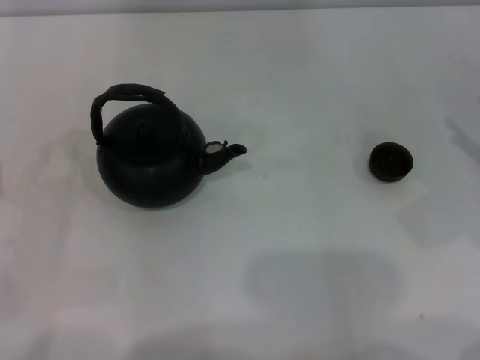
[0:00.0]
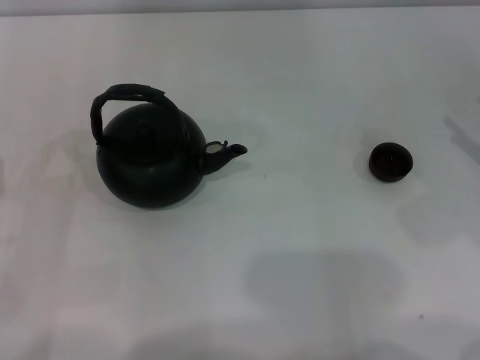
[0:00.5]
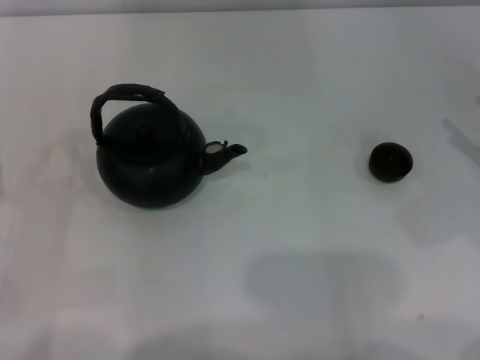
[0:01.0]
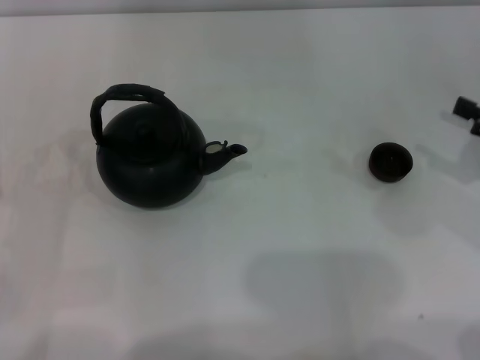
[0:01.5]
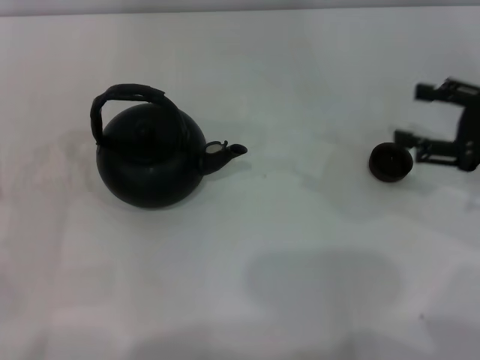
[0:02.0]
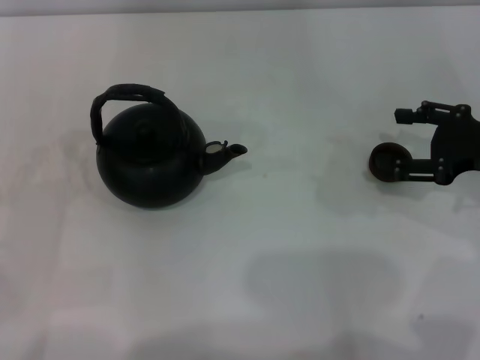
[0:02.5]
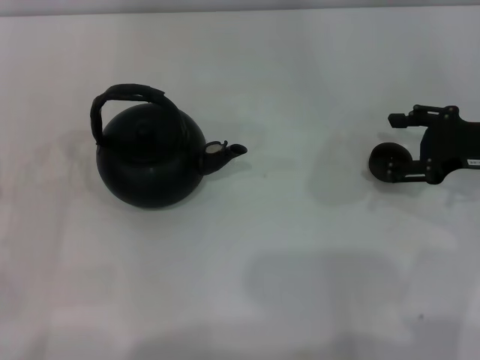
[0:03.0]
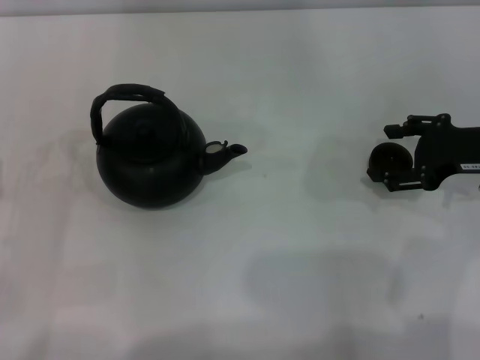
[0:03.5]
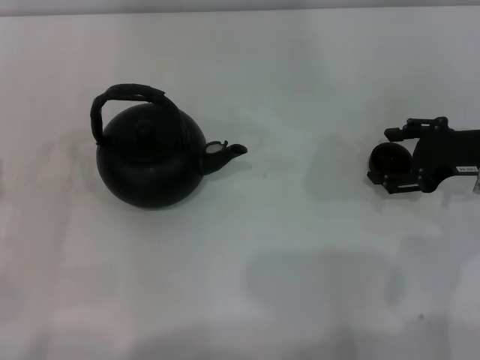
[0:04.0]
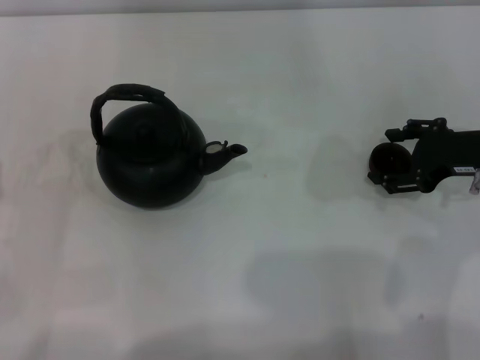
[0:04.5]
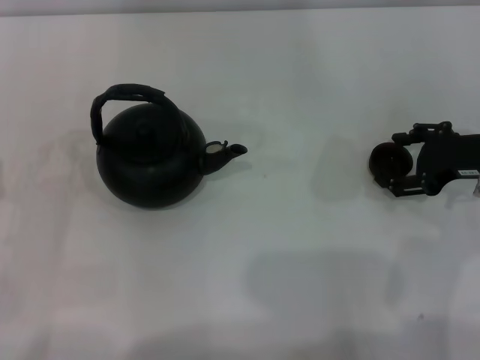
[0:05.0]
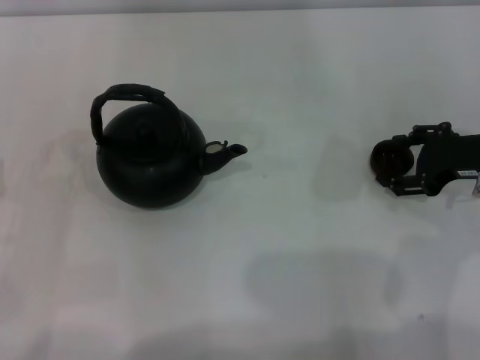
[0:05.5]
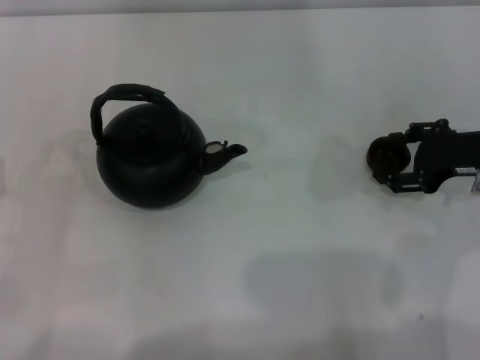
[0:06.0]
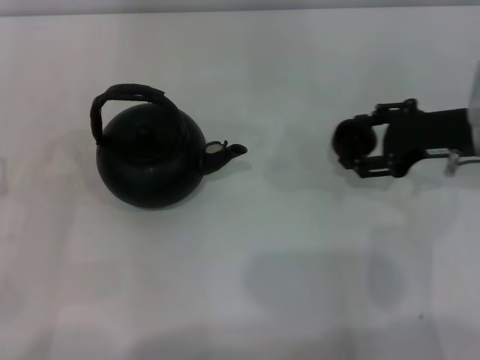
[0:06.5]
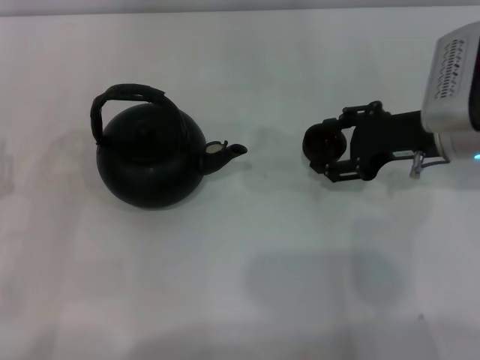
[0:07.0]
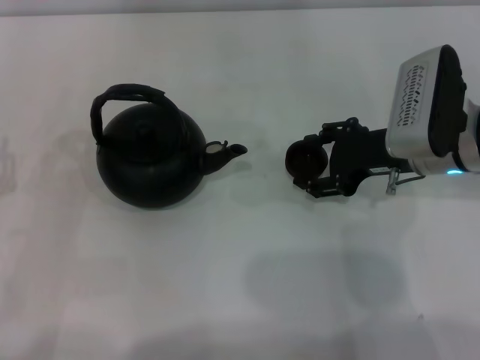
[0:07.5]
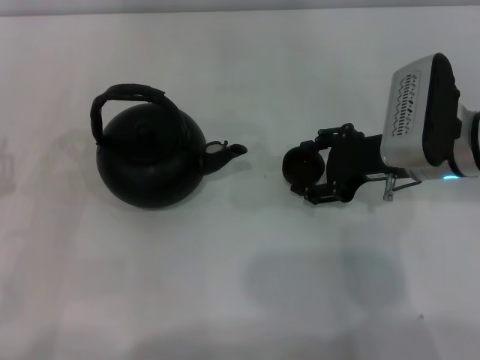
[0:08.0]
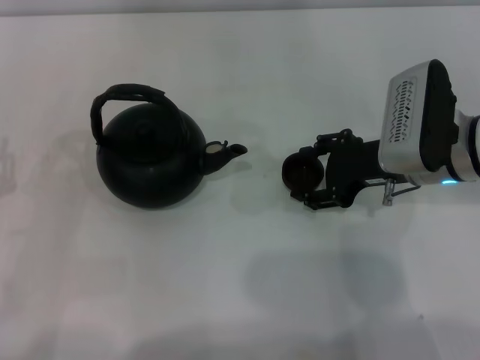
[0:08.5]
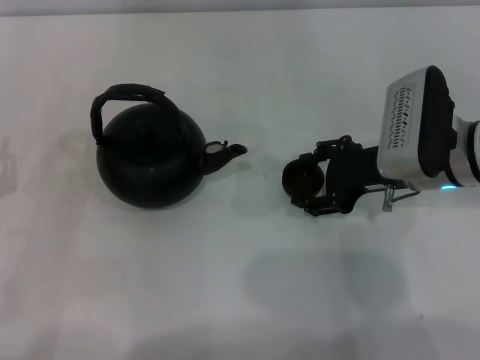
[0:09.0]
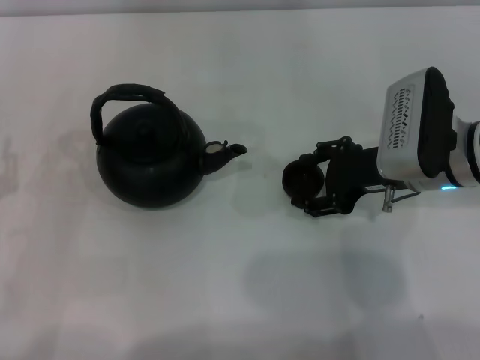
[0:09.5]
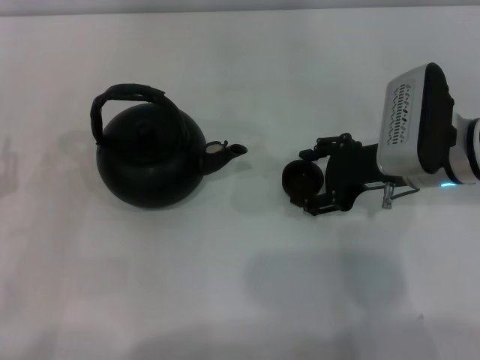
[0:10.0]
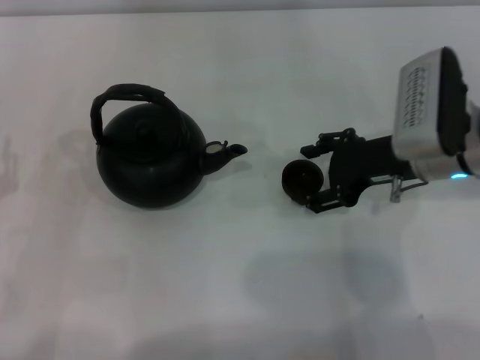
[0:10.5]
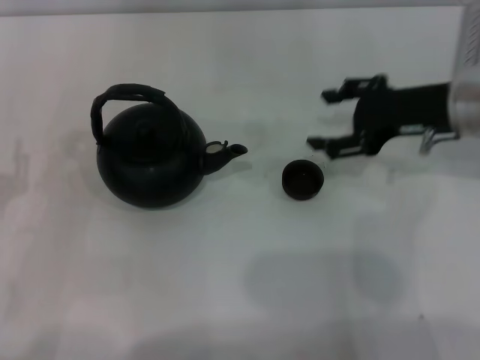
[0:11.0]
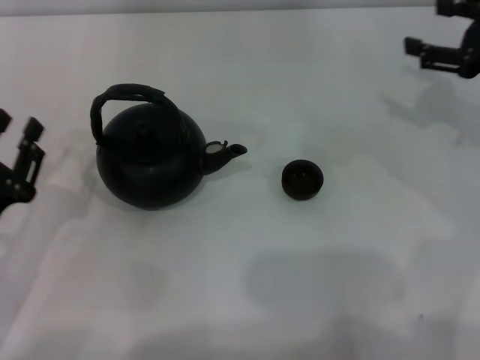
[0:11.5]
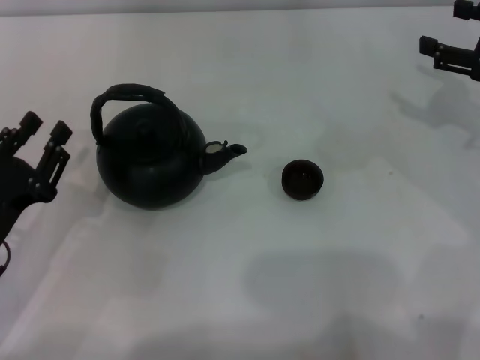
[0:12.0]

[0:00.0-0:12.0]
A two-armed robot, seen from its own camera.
Task of the whole recording: Grasp the handle of the teapot with one hand and pour tea into the teacup.
Step, 0:00.0 to 0:06.0: Pick up the teacup with the right gripper.
Step, 0:06.5 to 0:10.5: Place the teacup in the center of view with the right gripper.
0:00.0 to 0:02.0: The right gripper moves roughly 5 cm.
0:02.0 to 0:04.0: The right gripper ends up approximately 5 cm from where it was.
0:04.0 to 0:06.0: There are only small adjustments of the grippers.
0:06.0 to 0:08.0: The right gripper goes about 10 cm to the left.
0:08.0 to 0:10.0: Neither gripper changes place.
0:10.0 to 0:12.0: The right gripper heads to the right and upward, covering some 15 cm.

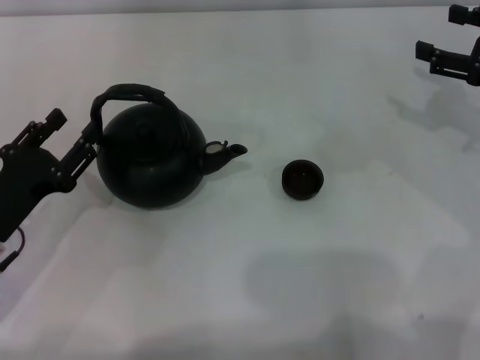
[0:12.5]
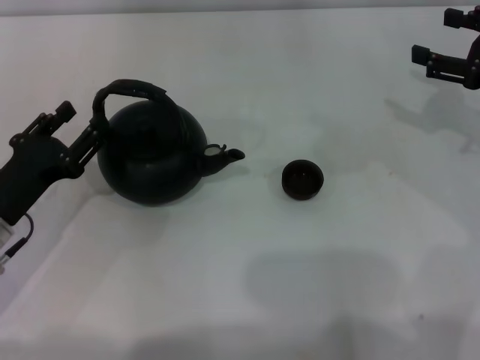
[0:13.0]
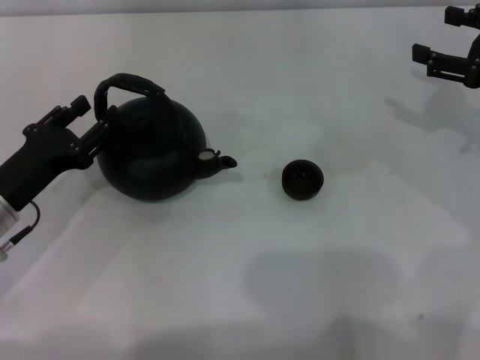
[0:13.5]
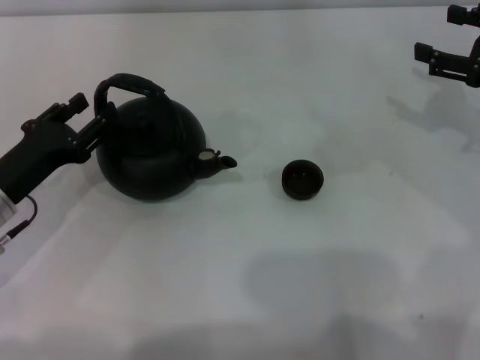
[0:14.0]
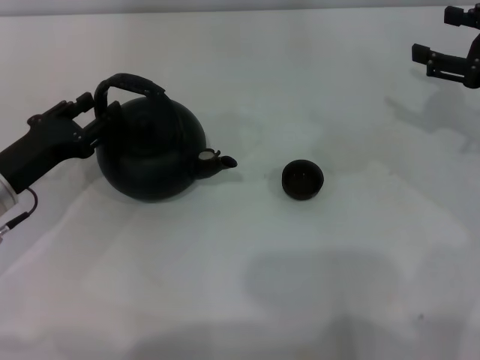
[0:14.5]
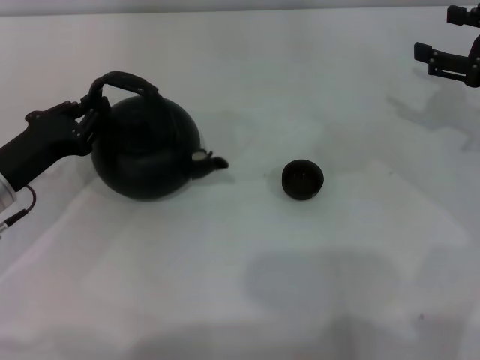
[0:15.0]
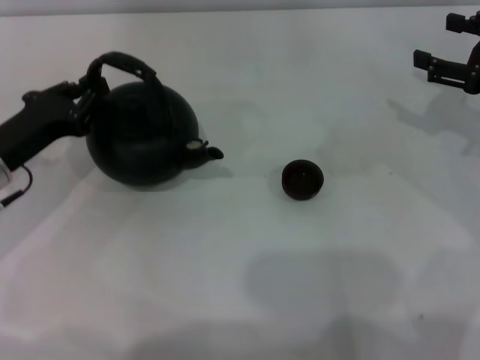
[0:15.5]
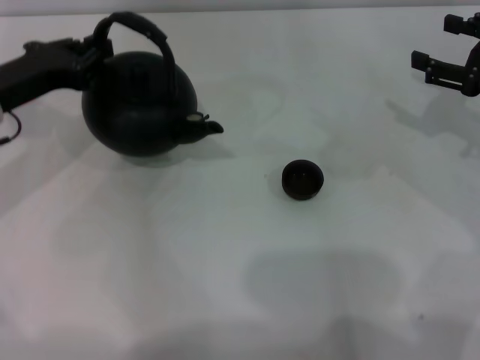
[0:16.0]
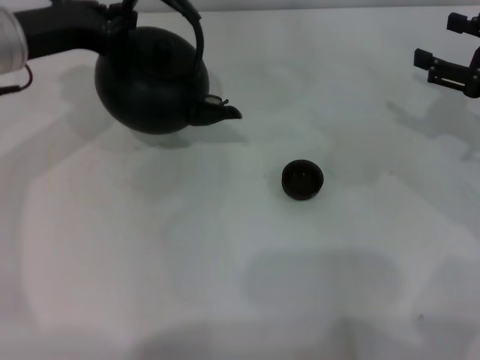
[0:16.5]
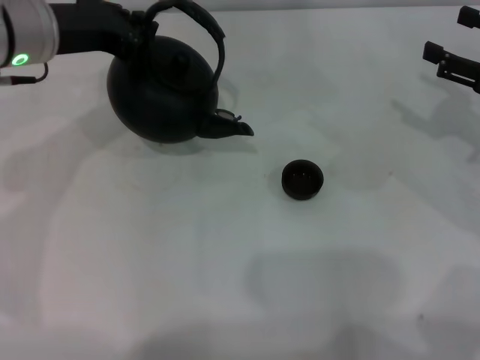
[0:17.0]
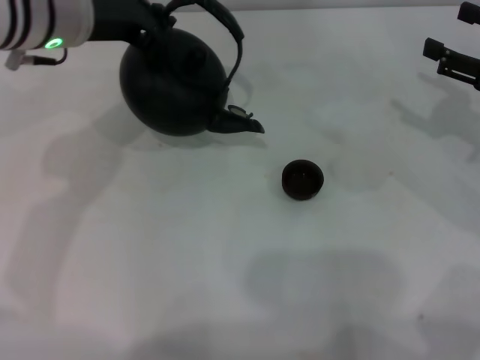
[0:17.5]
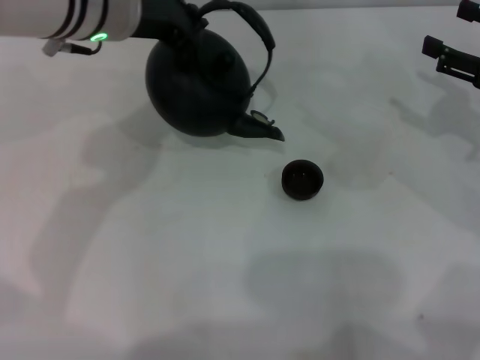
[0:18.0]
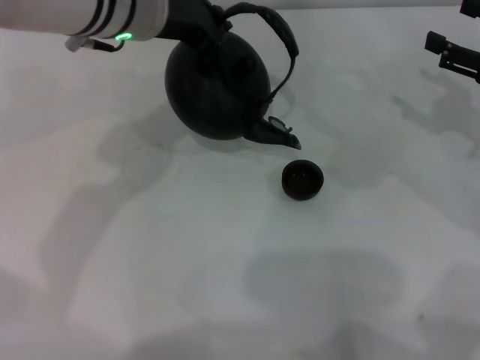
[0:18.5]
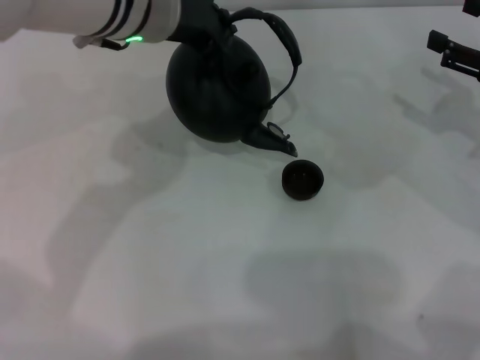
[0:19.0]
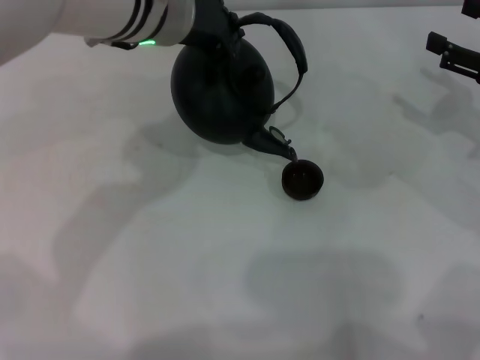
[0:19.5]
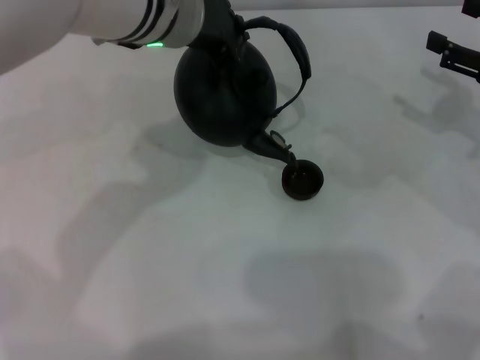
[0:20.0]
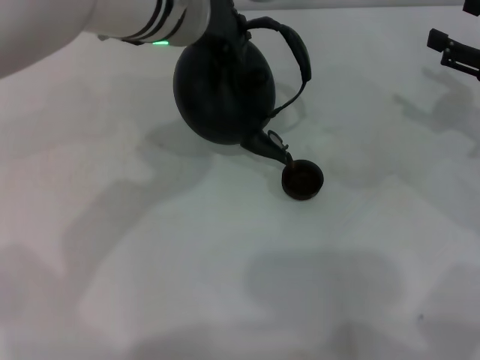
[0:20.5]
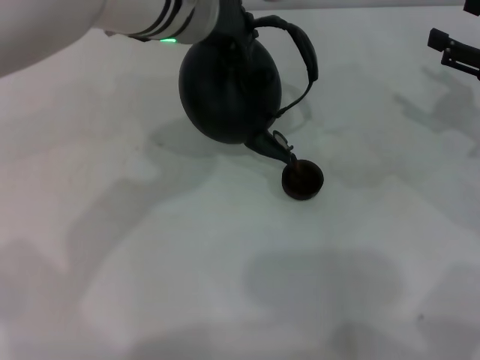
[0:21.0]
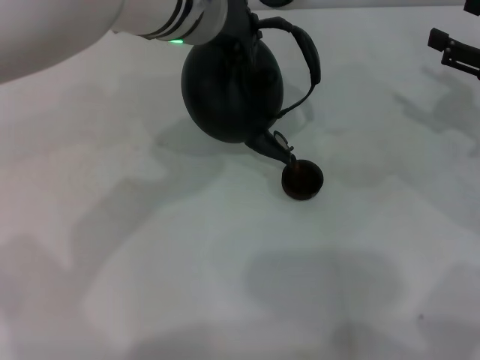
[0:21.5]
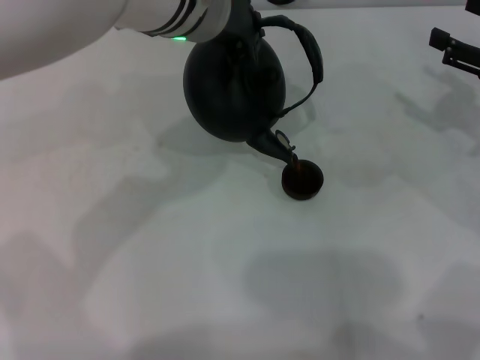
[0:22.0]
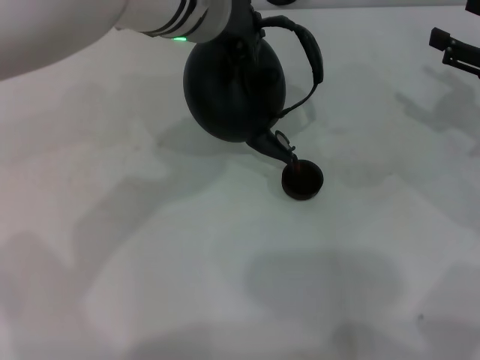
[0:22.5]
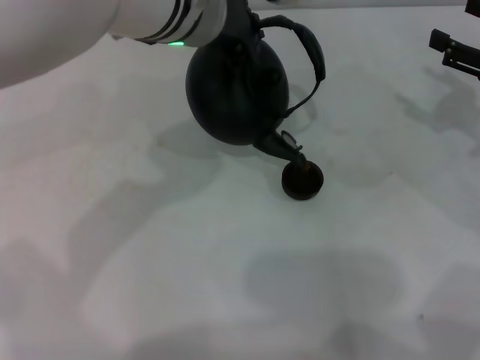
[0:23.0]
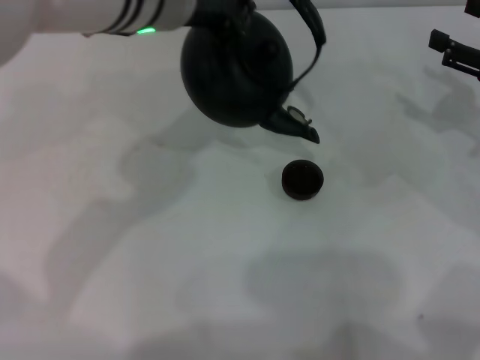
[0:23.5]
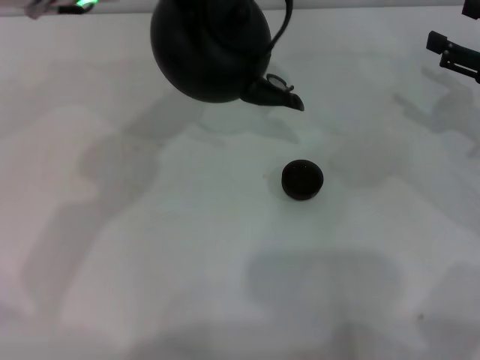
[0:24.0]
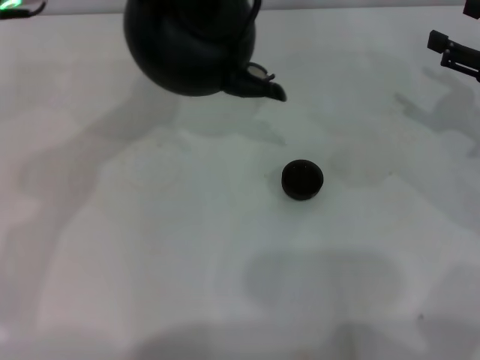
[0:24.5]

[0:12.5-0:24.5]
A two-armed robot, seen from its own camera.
Task of the whole recording: Grasp the handle of the teapot with one hand and pour tea into the teacup.
Step, 0:12.5 to 0:16.0: Pick up the teapot with the left gripper.
Step, 0:16.5 to 0:24.0: Pour tea into the teacup with the left gripper.
0:12.5 to 0:14.5: The left gripper goes some 5 cm forward.
0:14.5 to 0:16.5: The left gripper travels upward and forward by some 15 cm, and closes its fingers.
0:16.5 to 0:18.5: The left gripper shifts about 15 cm to the right.
0:18.5 to 0:22.5: The grippers make only small movements.
0:22.5 to 0:24.5: The left gripper heads to the left, covering about 15 cm.

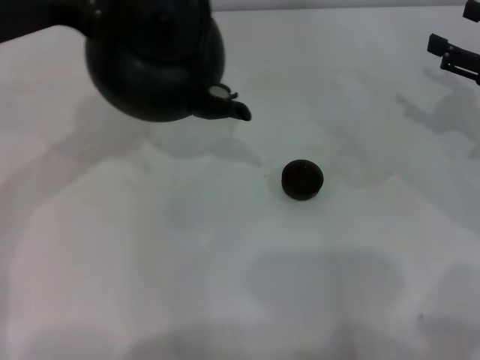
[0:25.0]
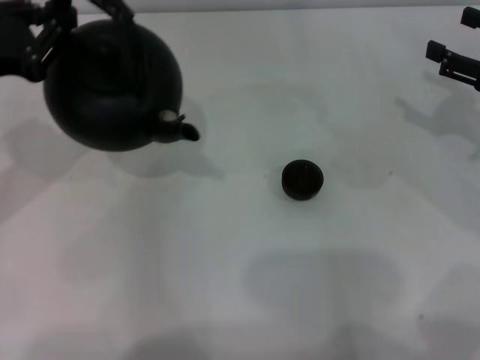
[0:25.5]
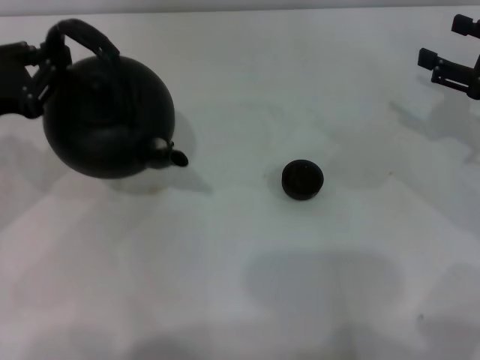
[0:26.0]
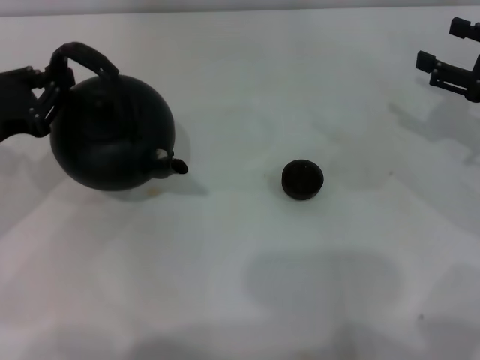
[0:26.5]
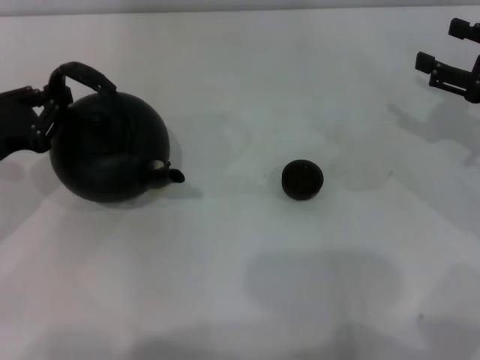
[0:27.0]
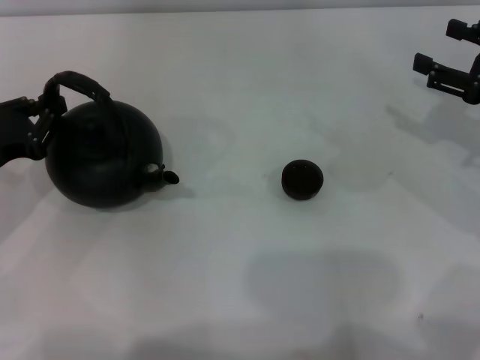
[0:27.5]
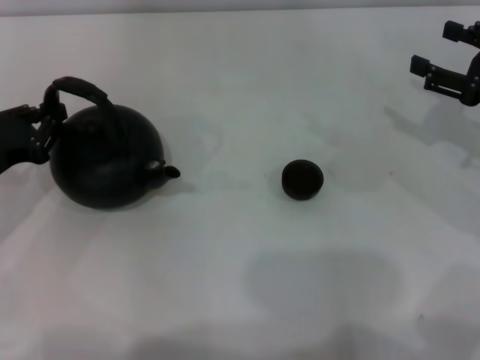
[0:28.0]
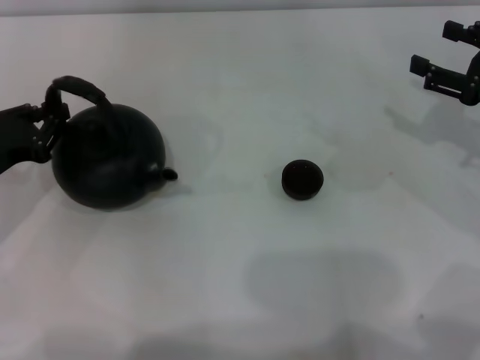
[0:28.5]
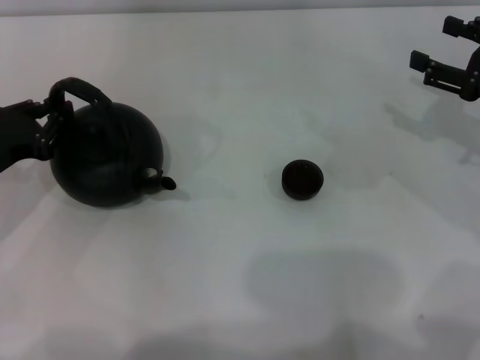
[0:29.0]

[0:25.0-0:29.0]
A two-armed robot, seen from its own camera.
Task of the whole recording: Grasp the handle of the teapot with one hand and pour tea into the teacup.
0:25.0 to 0:27.0: The left gripper heads downward and to the left, covering approximately 15 cm.
0:27.0 to 0:29.0: There are only small adjustments of the grippers.
